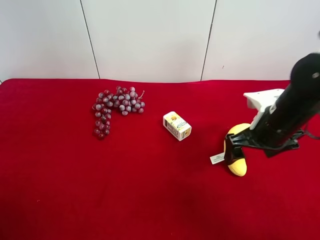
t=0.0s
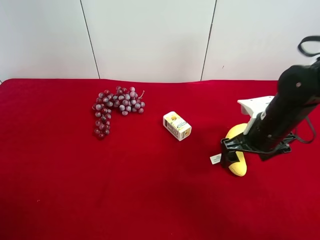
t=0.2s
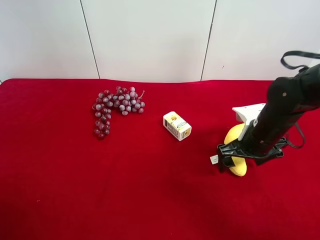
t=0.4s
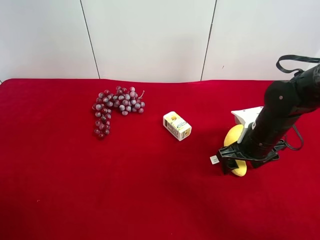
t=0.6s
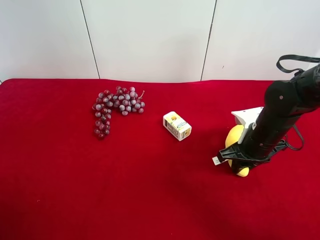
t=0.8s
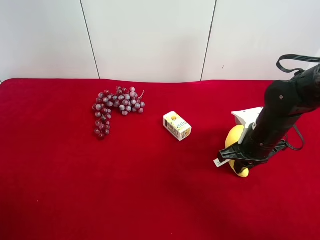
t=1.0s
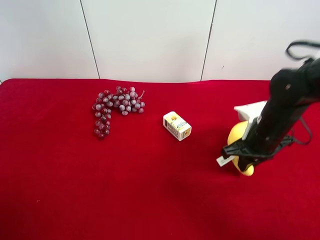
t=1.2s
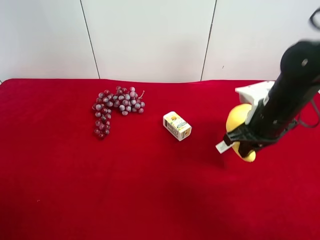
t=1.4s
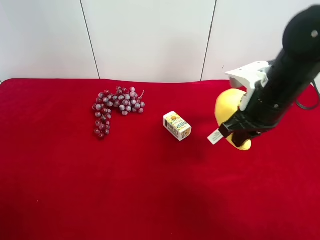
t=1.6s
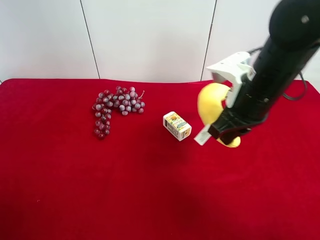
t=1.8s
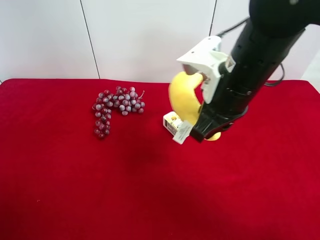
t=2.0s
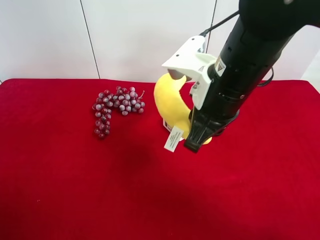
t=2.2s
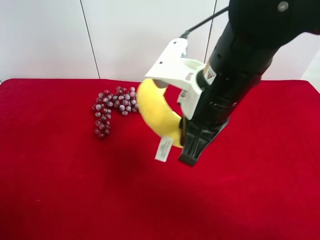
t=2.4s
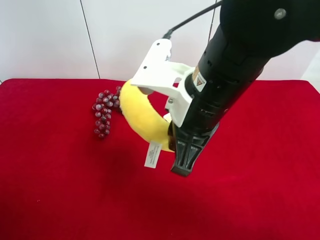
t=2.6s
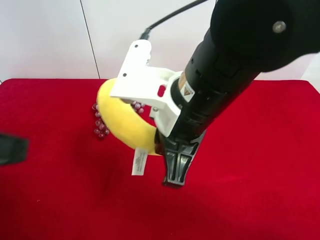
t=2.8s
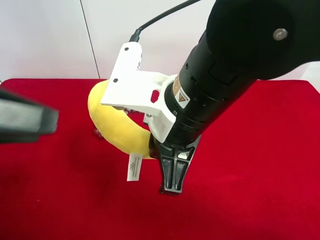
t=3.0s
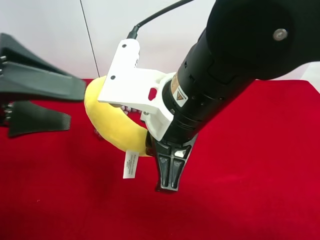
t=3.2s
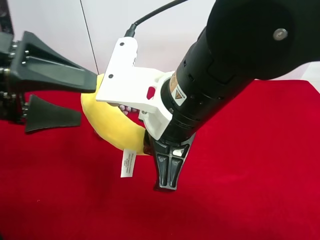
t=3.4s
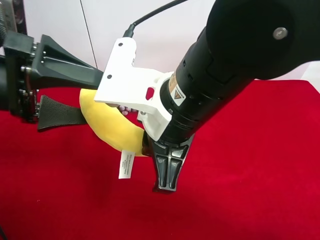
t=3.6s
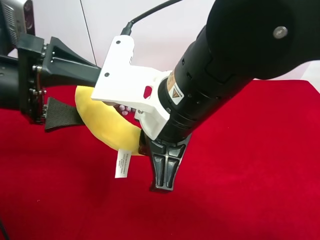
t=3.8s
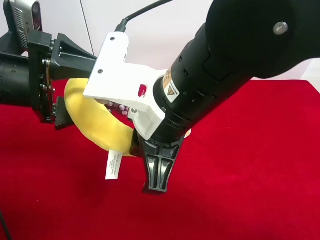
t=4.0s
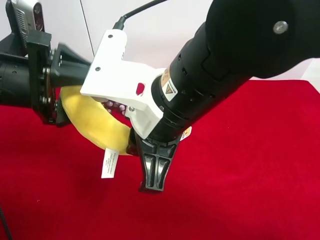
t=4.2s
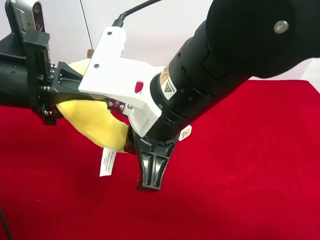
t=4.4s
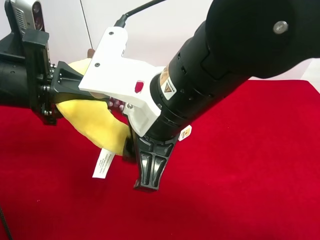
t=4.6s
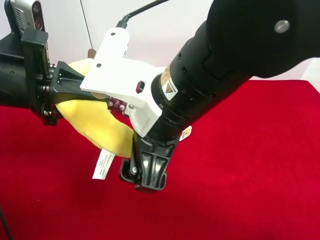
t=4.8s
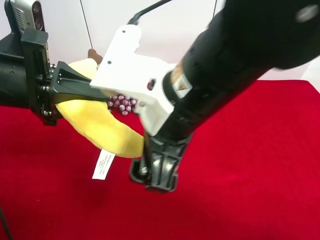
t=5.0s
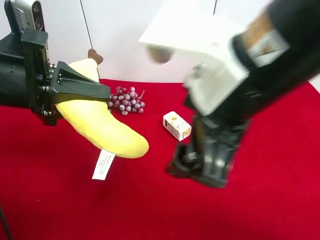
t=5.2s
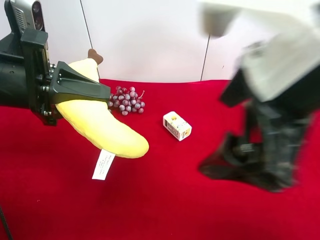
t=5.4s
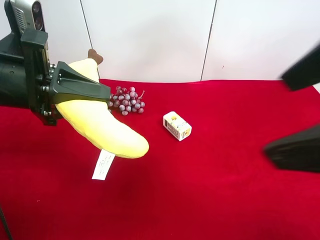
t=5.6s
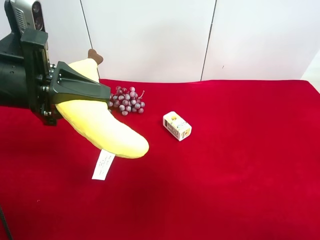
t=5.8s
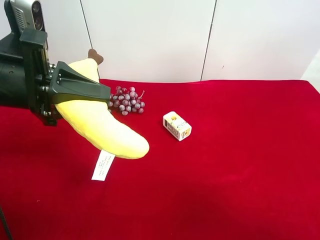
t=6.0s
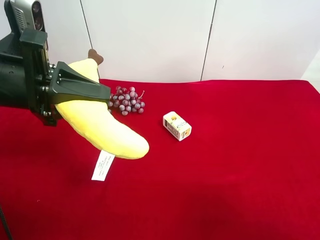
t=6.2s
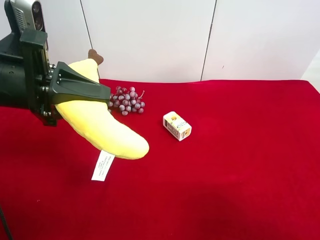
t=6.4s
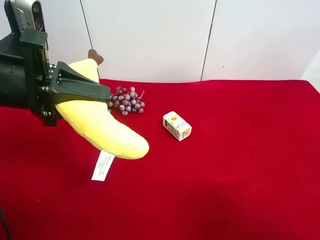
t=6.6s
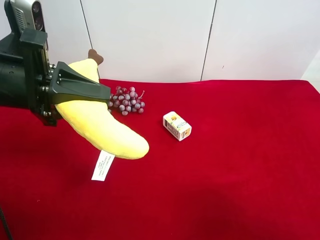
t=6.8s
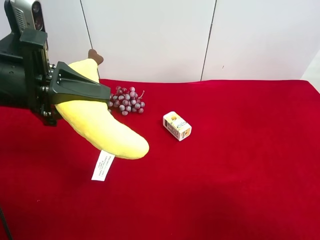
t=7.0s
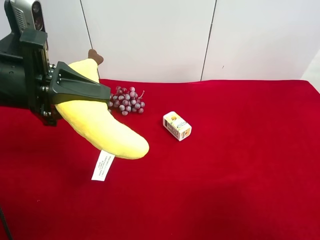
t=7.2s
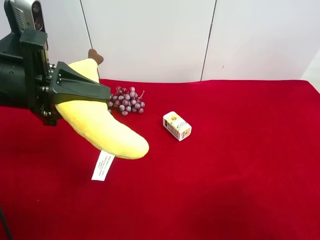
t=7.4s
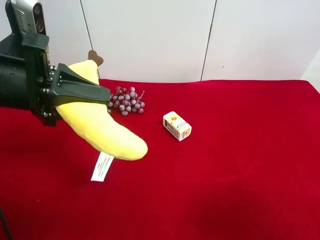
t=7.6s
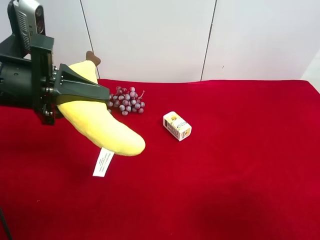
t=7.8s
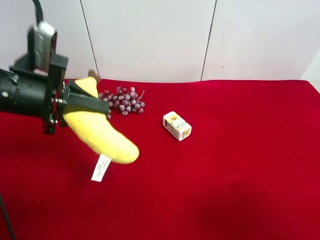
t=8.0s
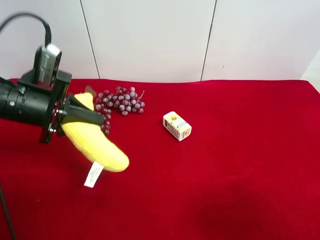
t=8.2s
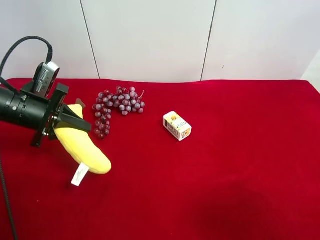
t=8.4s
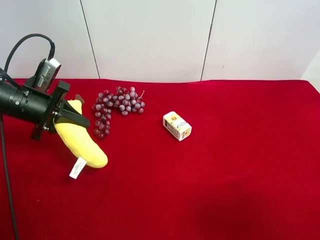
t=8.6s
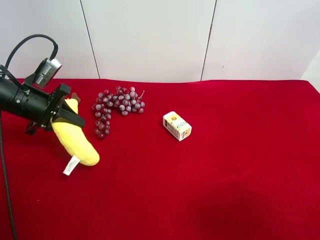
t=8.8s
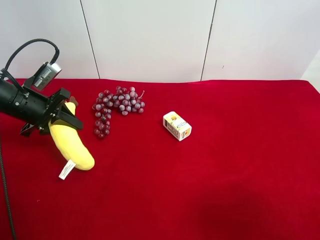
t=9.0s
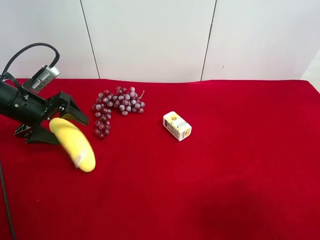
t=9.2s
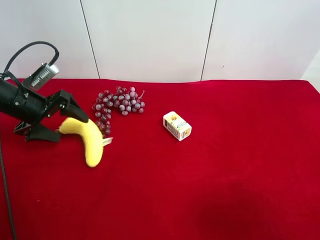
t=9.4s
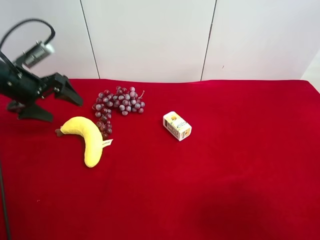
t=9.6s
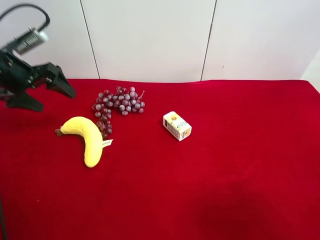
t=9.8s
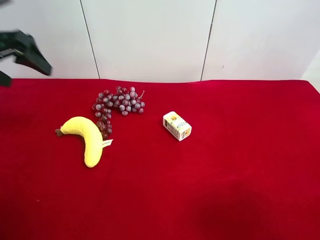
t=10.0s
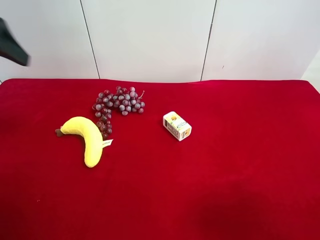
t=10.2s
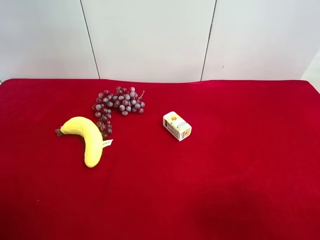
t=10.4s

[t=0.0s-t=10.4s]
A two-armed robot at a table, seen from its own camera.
Task of the whole recording: use the right gripper to pick up the item and transfer it from the right gripper to the left gripper.
Step, t=0.8s to t=4.8s: Pass the plush banana to the left gripper.
Step, t=5.0s to t=9.4s: The left gripper places plush banana on the left side of the table.
t=0.0s to t=1.4s: The right gripper closes its fingers.
t=1.4s to t=3.0s: The left gripper is displaced forward and to the right by approximately 15 cm, while the right gripper travels to the left, backward and upward by roughly 20 cm.
t=3.0s to t=4.4s: The left gripper shifts some 10 cm forward and downward, and closes.
t=4.4s to t=6.0s: The right gripper is displaced to the right and backward by roughly 30 cm, and opens.
t=7.4s to t=9.0s: The left gripper heads downward, forward and to the left, covering roughly 15 cm, and opens up.
t=9.0s to t=10.4s: The left gripper is displaced upward and backward by some 30 cm, and opens.

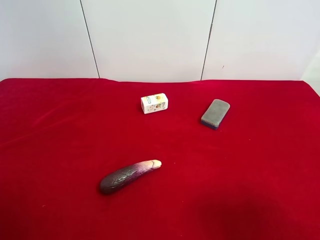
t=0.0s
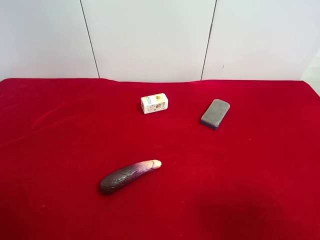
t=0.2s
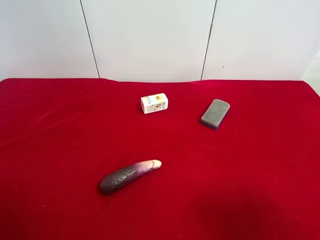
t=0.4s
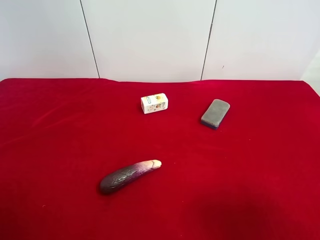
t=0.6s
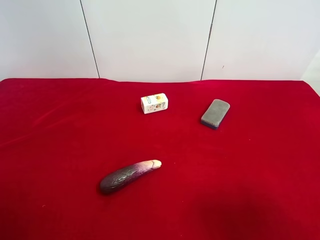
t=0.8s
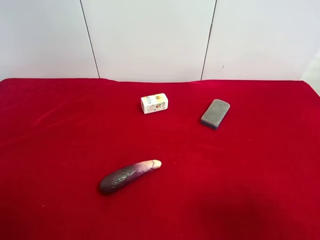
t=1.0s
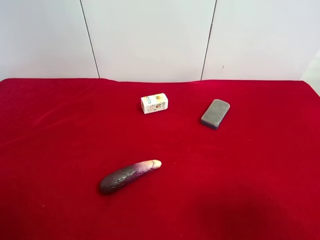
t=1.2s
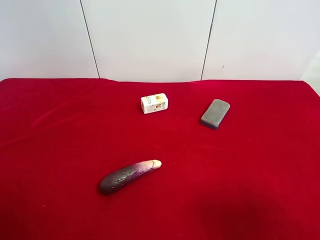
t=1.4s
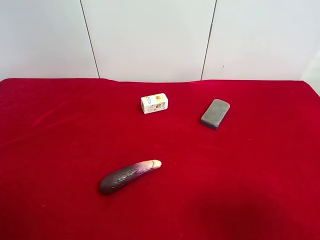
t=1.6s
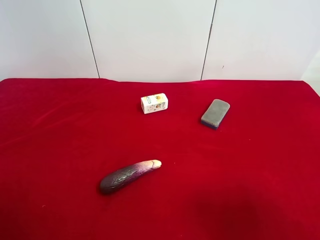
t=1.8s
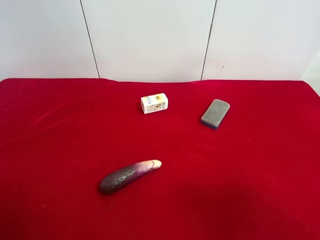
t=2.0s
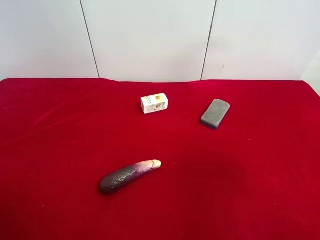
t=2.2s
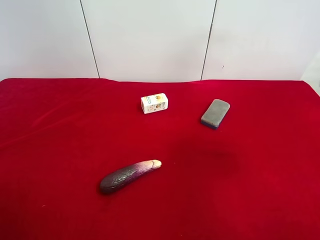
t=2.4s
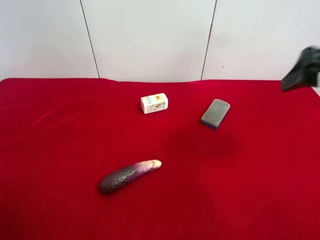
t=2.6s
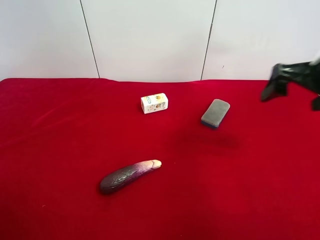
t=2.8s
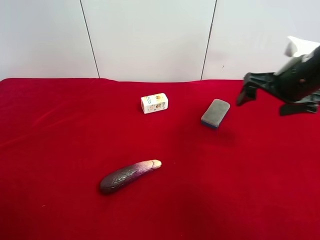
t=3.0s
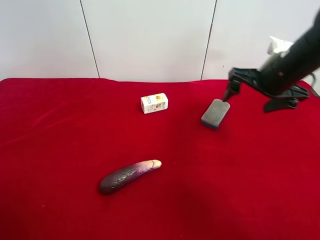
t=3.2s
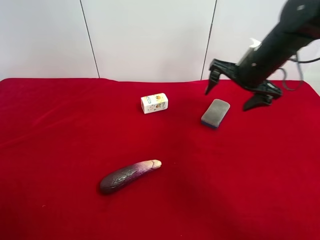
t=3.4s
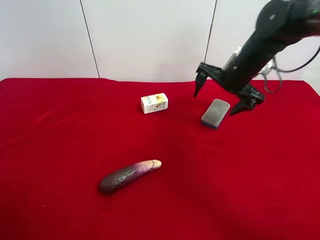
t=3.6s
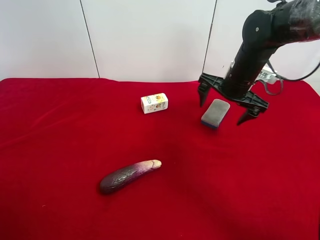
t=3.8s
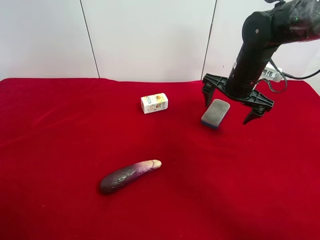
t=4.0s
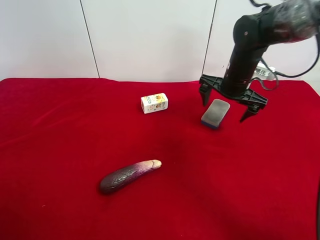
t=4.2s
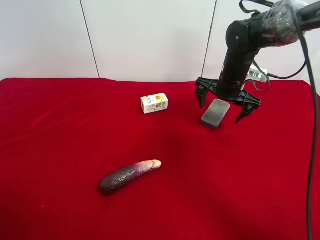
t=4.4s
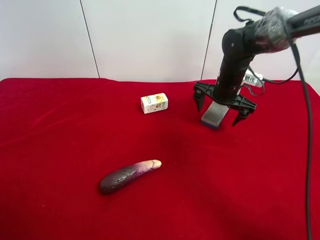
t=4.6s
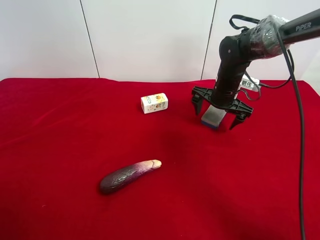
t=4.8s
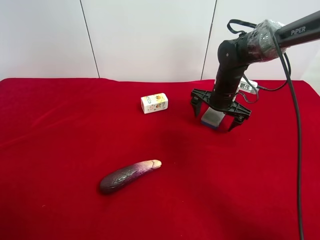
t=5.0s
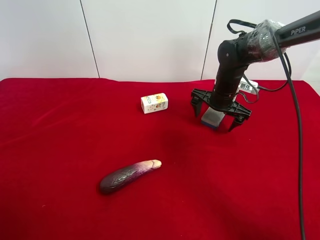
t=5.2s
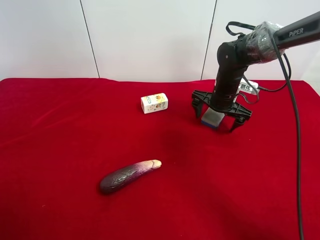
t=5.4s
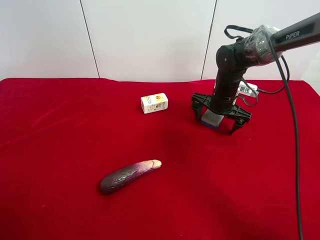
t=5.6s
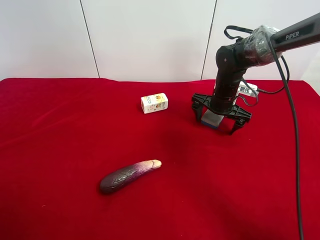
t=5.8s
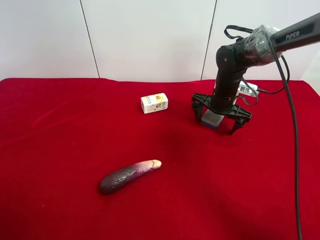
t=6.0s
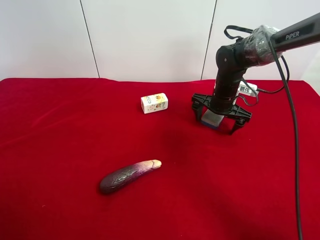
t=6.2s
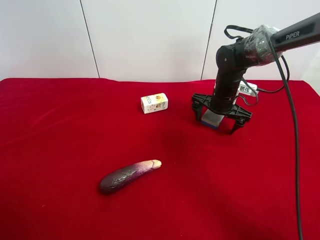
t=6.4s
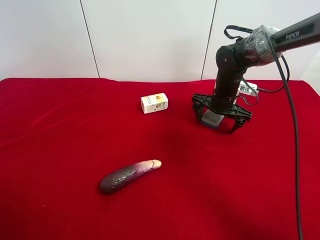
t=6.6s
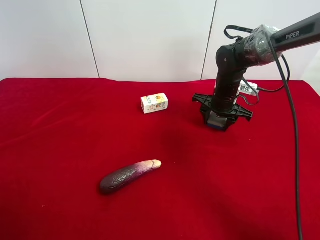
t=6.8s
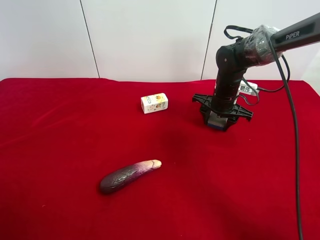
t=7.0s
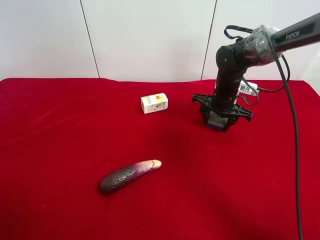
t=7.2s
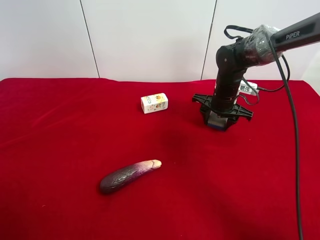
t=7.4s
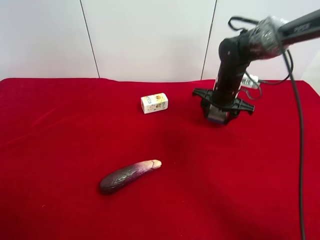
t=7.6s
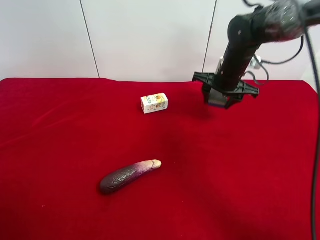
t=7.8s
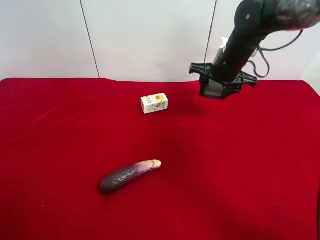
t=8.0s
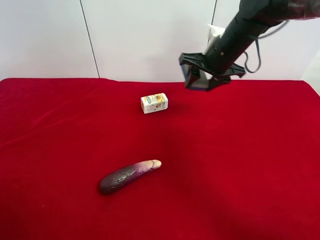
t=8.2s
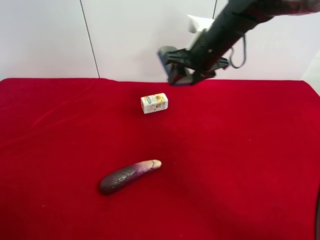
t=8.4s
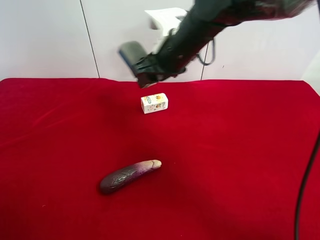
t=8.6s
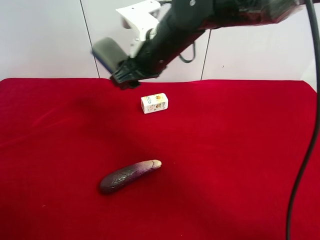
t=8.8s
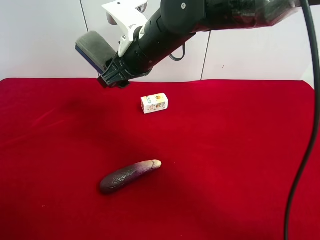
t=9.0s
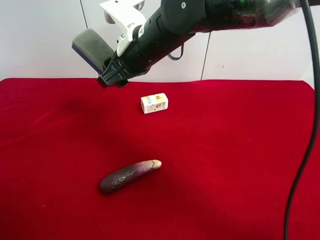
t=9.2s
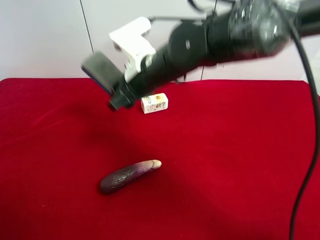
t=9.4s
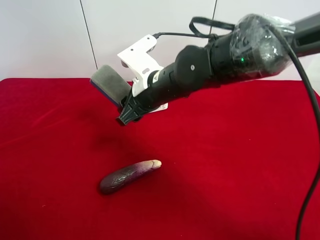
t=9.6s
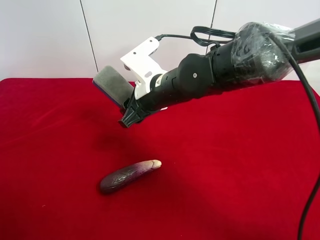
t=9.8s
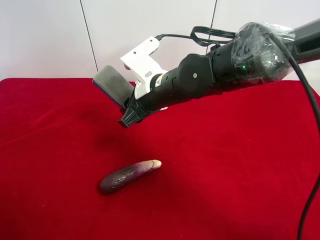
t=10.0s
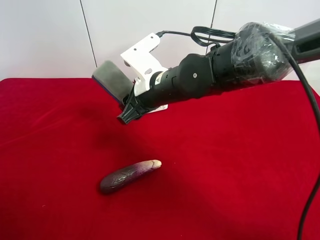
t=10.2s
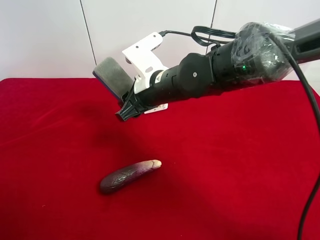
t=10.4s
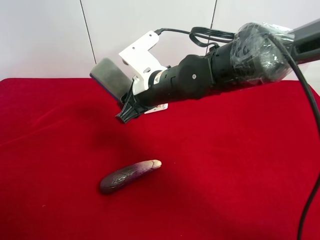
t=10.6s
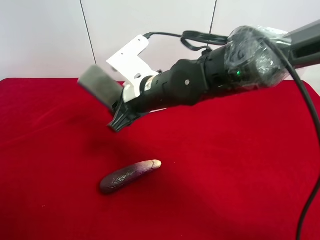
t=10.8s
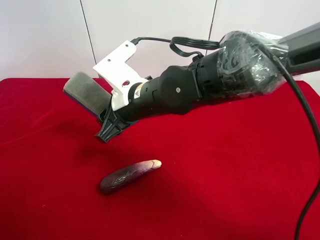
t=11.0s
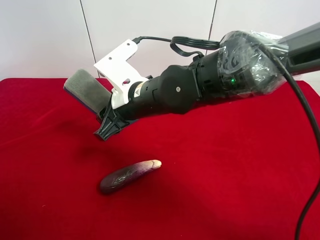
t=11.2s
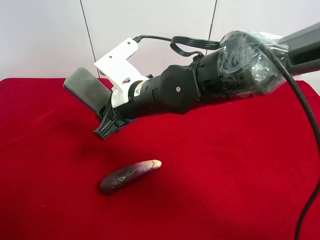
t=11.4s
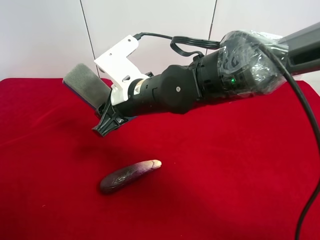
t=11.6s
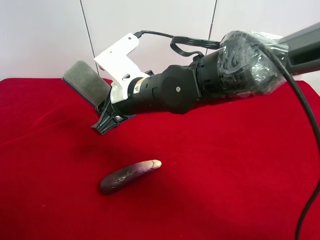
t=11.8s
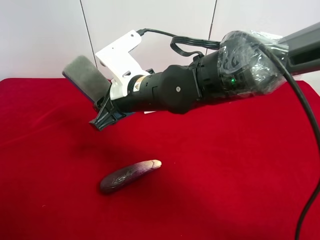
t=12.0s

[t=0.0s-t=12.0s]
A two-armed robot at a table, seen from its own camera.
Task of the whole recording: use the right gripper to pick up the item and transfer it from the right gripper to the left gripper.
Step, t=0.0s to t=6.8s: Use the right gripper to grab the blue blackboard erasure on the right side of the table.
t=0.0s to t=1.6s: Neither gripper changes place.
t=1.6s to t=3.0s: The right gripper is displaced forward by some 30 cm.
t=3.0s to t=4.4s: The right gripper goes approximately 15 cm forward, downward and to the left.
t=4.4s to t=6.0s: The right gripper ends up approximately 5 cm from where it was.
t=6.0s to t=7.6s: The right gripper closes its fingers.
t=7.6s to t=9.0s: The right gripper heads to the left, upward and backward, covering about 25 cm.
t=9.0s to t=10.4s: The right gripper is displaced downward by some 5 cm.
t=10.4s to t=12.0s: The left gripper ends up some 5 cm from where it was.
